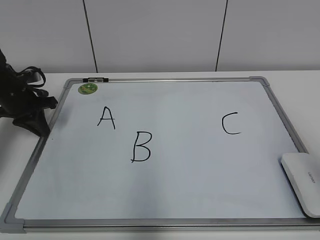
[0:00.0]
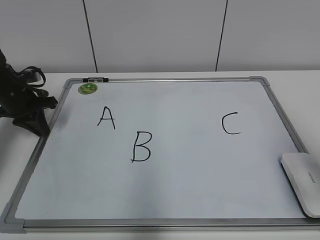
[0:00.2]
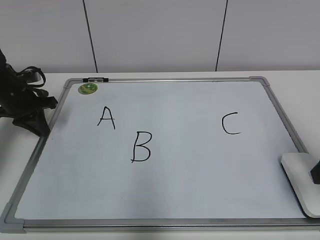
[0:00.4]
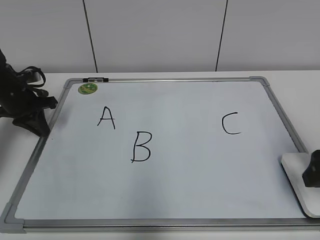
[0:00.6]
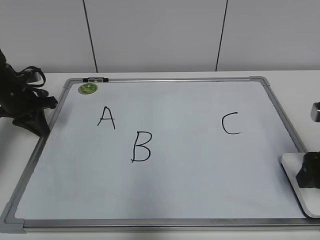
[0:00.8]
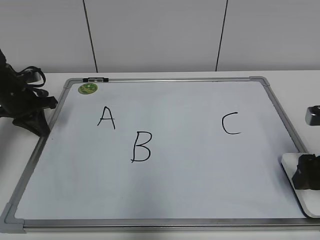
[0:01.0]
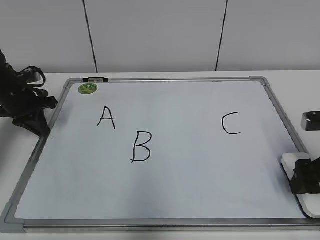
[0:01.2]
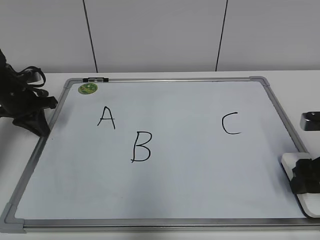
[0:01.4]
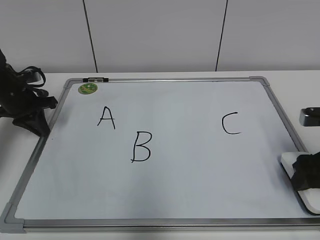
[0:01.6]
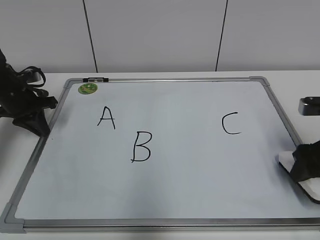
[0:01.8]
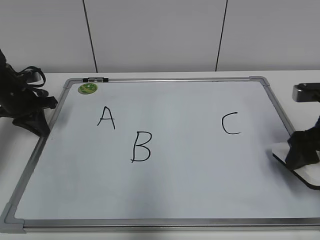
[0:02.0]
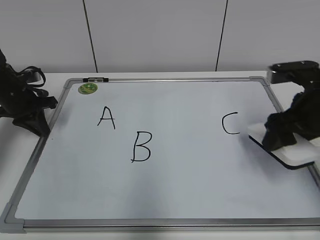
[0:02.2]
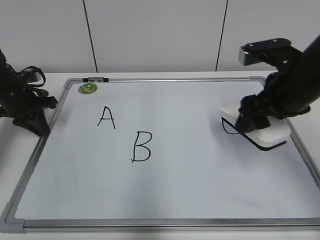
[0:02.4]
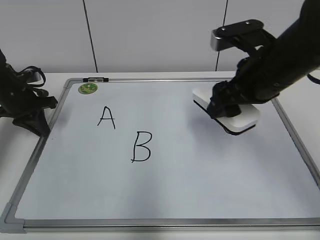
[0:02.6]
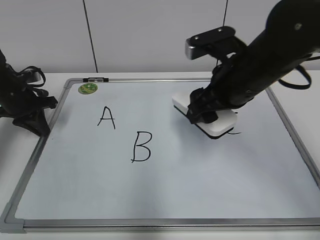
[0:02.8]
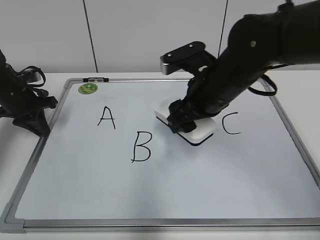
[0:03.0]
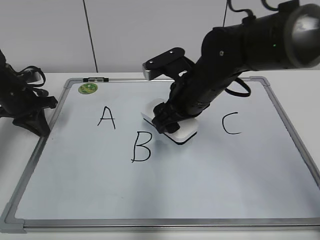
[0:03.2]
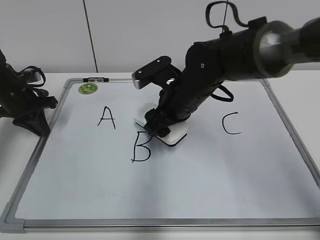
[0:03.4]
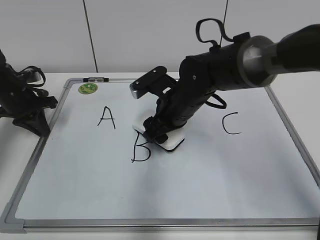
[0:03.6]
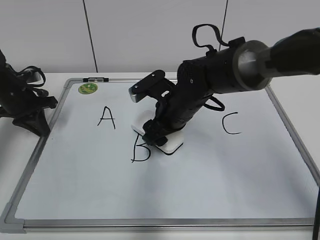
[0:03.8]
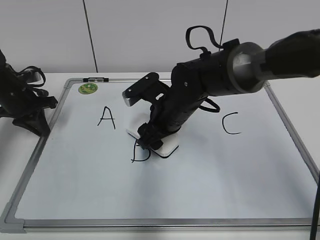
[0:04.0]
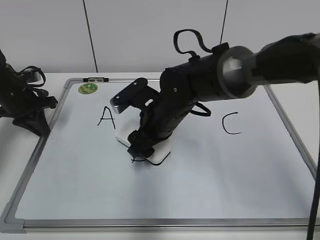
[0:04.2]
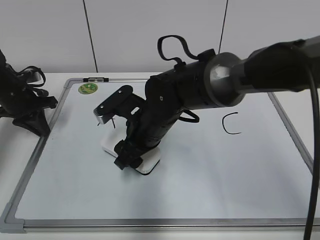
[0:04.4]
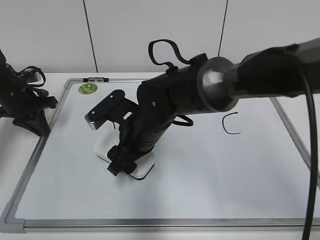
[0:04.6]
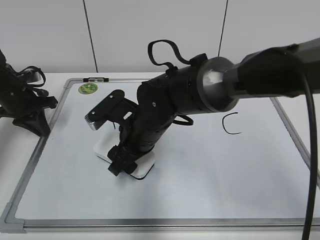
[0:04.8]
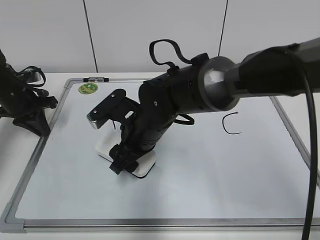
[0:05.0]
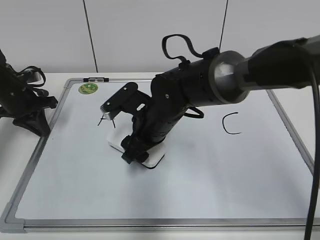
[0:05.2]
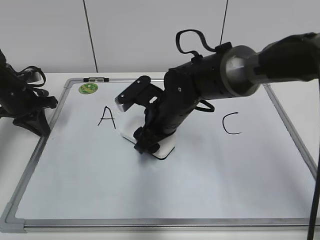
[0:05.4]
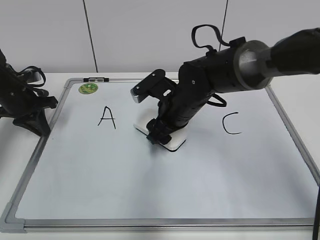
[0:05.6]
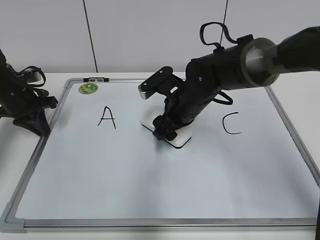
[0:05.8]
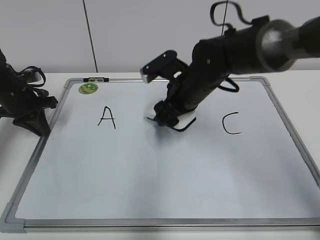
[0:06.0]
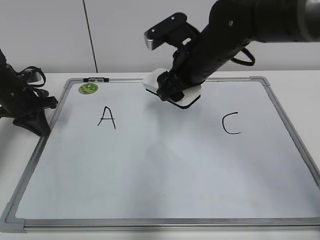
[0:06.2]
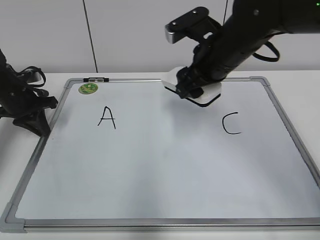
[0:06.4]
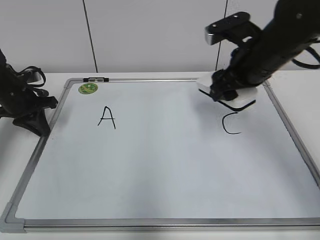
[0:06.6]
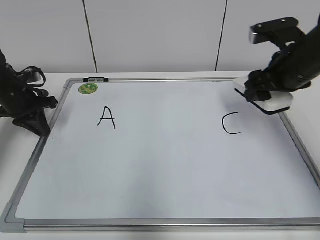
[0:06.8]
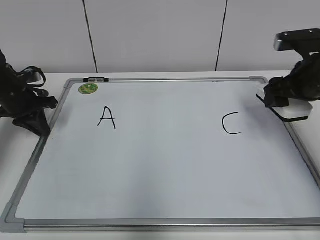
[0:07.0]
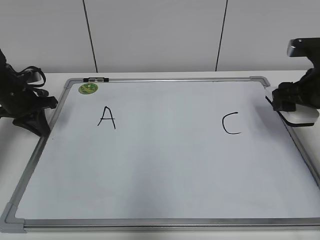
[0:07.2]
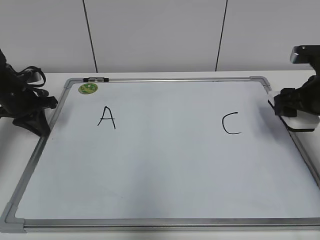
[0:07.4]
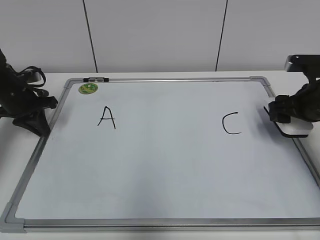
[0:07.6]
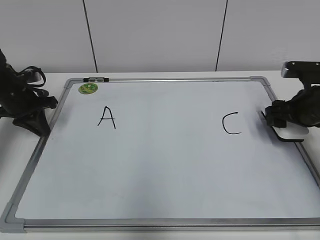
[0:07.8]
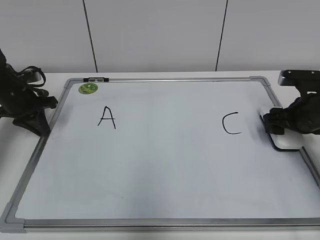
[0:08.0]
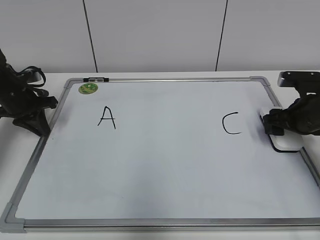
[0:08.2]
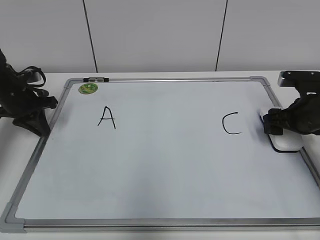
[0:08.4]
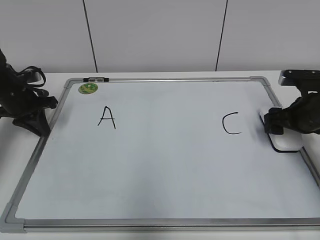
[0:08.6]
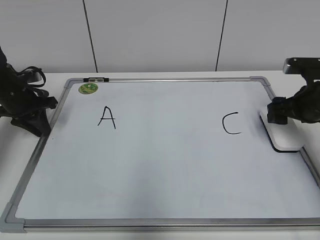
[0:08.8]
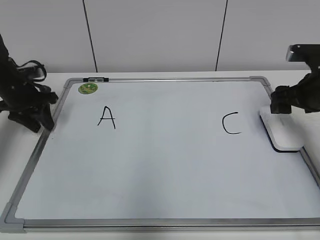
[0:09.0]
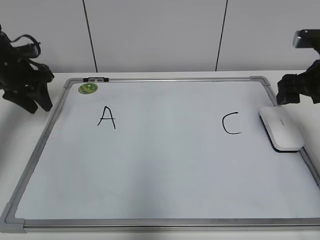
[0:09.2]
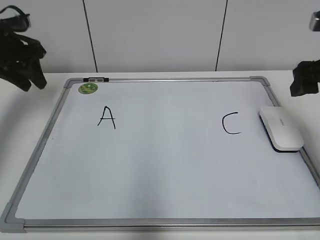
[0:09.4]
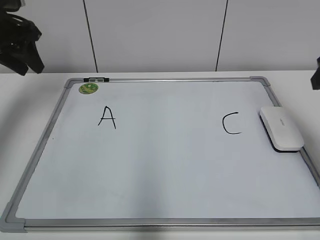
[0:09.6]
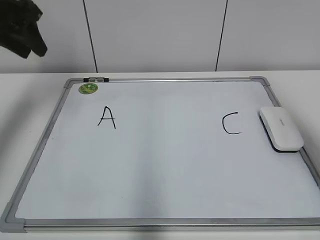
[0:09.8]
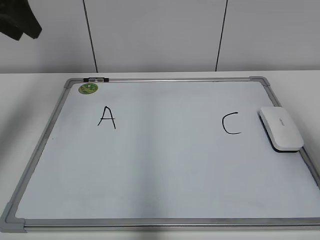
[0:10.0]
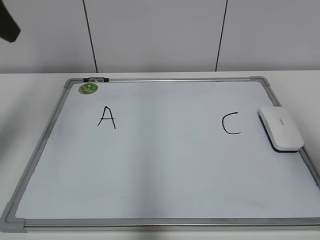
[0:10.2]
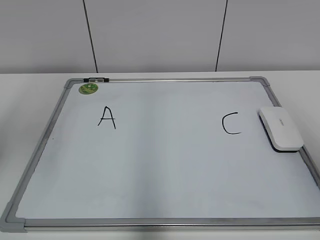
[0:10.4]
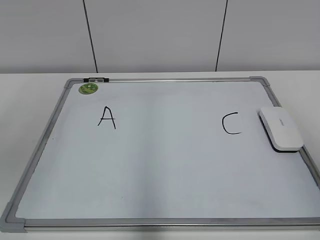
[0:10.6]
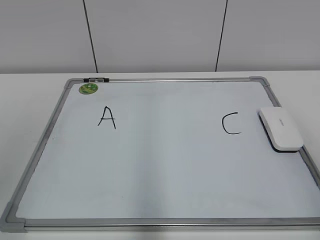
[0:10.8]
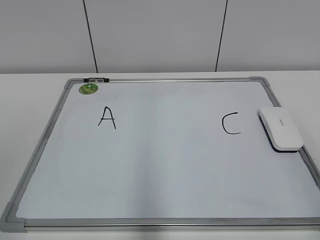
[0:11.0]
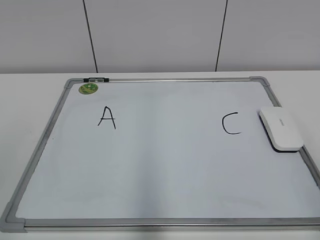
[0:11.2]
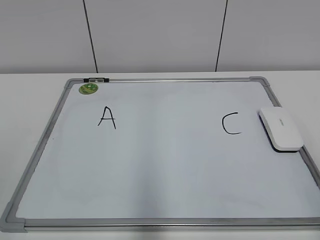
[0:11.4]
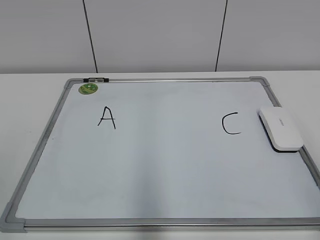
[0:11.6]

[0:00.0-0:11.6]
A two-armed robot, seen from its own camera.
Task of the whole recording: pick up the eraser on the blackboard and erase the letter "B".
Step, 0:01.6 to 0:05.4: Erase the letter B with your right hand.
0:00.0 to 0:01.4: The right gripper is displaced downward and forward by roughly 15 cm, and opens, then closes again.
0:01.4 to 0:02.8: The right gripper is displaced to the left and upward by about 20 cm.
0:02.8 to 0:04.4: The right gripper goes roughly 15 cm to the left and downward.
0:04.4 to 0:05.8: The right gripper shifts about 10 cm to the right and forward.
0:05.8 to 0:07.2: The right gripper is displaced to the right by some 20 cm.
0:07.2 to 0:08.8: The right gripper opens up.
0:08.8 to 0:10.2: Both grippers move upward and backward, some 30 cm. The left gripper opens.
0:10.2 to 0:11.6: The left gripper shifts about 25 cm backward and downward, while the right gripper goes approximately 15 cm backward and downward.

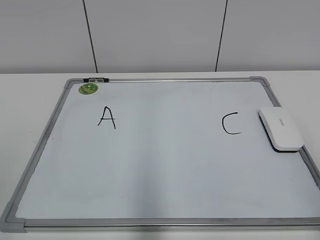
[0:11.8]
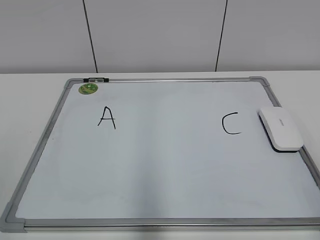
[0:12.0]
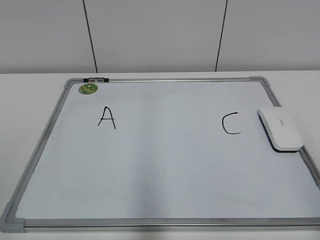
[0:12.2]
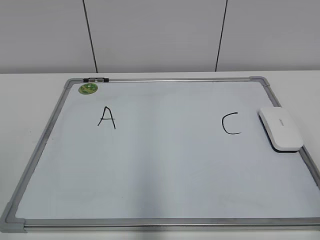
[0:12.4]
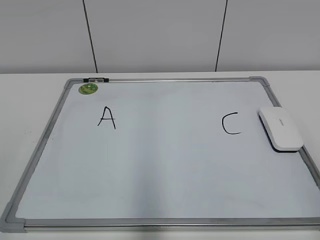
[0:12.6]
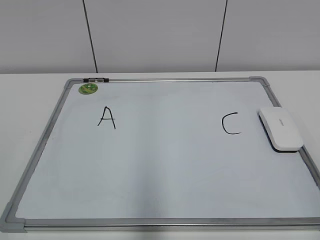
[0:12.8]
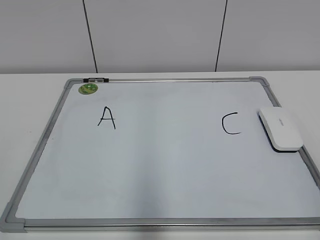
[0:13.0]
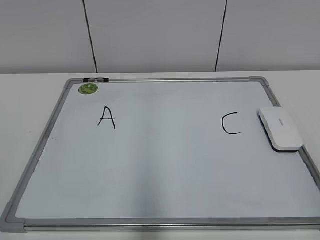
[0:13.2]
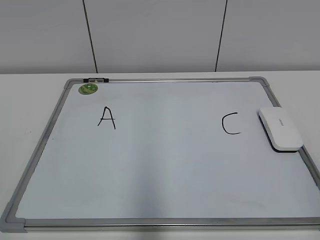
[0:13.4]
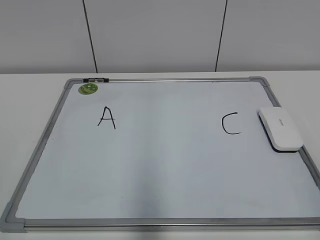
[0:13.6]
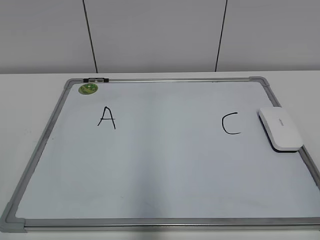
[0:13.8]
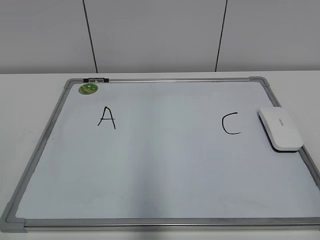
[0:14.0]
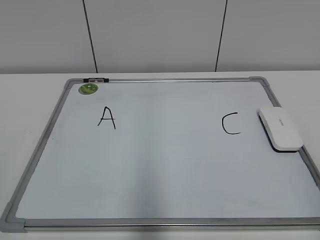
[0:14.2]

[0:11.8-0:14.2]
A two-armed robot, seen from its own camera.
Task of the whole recording: pick up the eraser on the blackboard and erase the letter "B".
0:13.0 to 0:14.2: Both grippers stay put.
